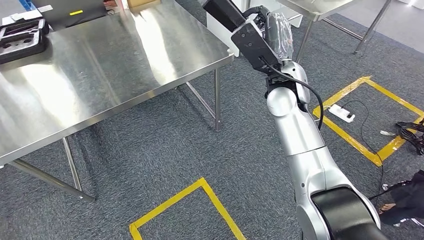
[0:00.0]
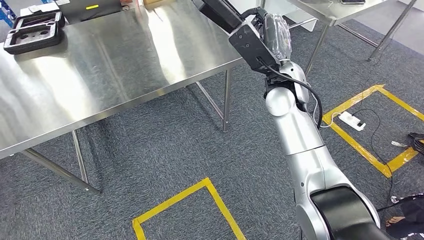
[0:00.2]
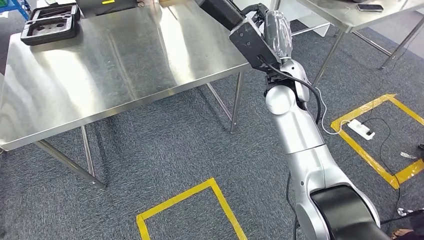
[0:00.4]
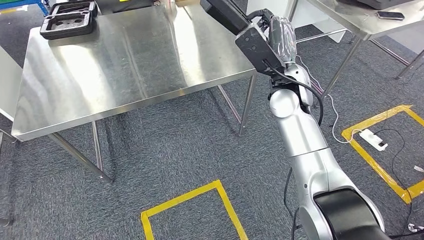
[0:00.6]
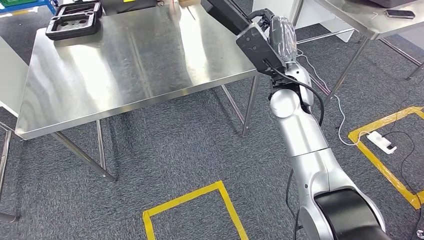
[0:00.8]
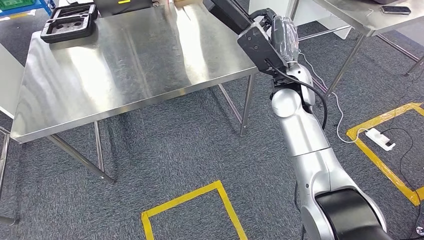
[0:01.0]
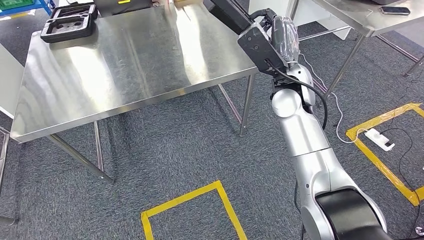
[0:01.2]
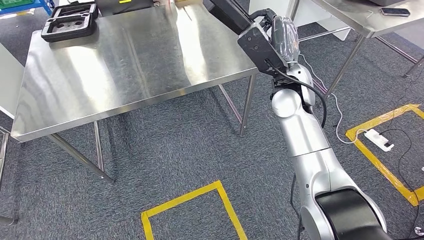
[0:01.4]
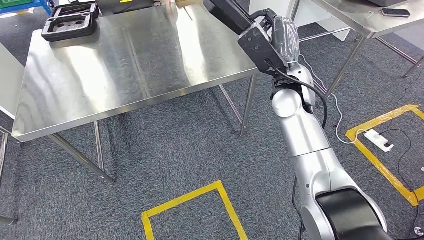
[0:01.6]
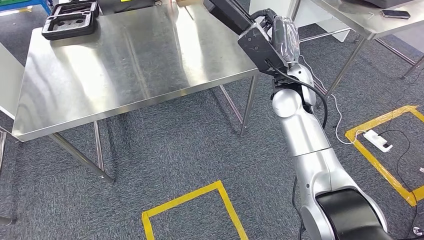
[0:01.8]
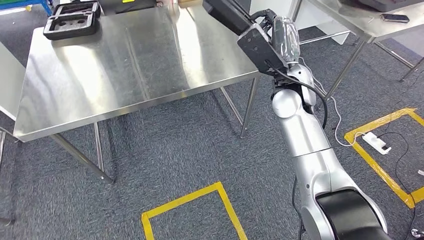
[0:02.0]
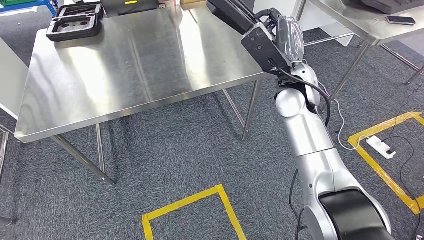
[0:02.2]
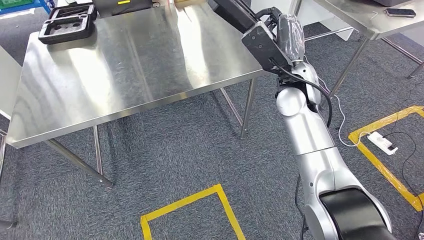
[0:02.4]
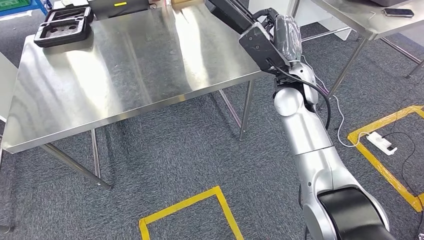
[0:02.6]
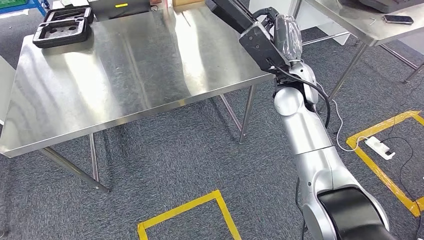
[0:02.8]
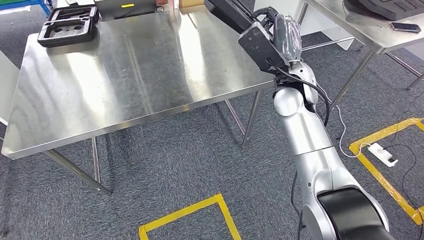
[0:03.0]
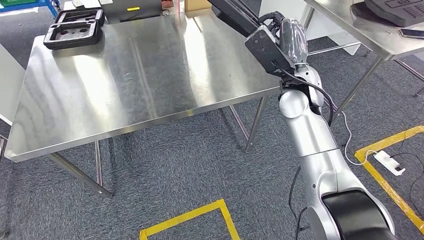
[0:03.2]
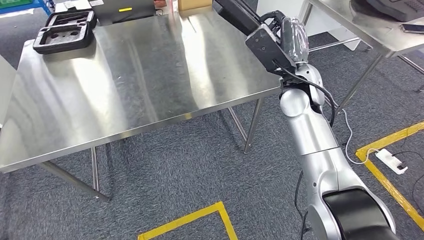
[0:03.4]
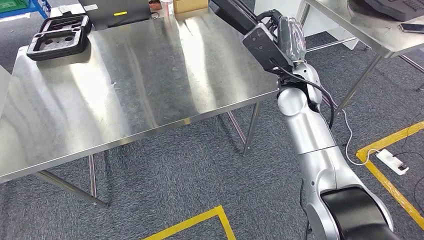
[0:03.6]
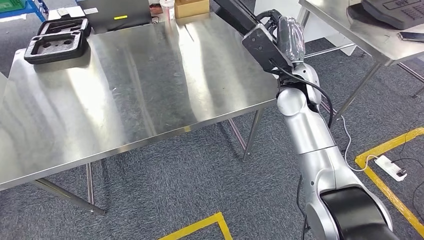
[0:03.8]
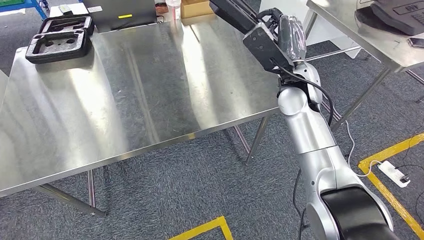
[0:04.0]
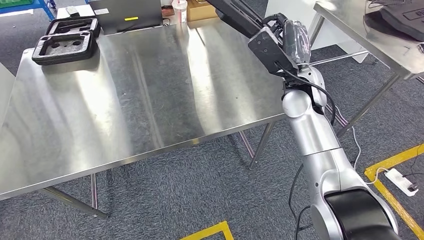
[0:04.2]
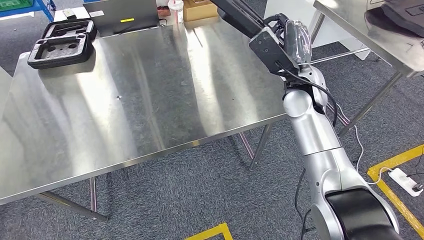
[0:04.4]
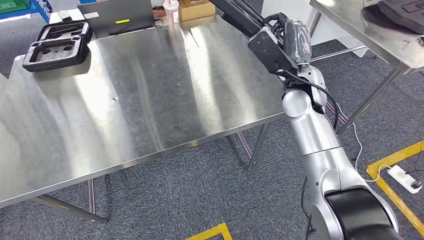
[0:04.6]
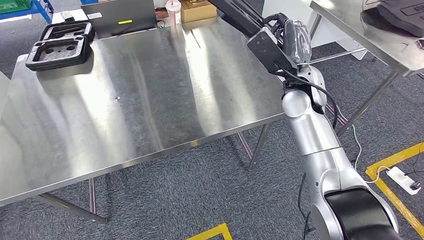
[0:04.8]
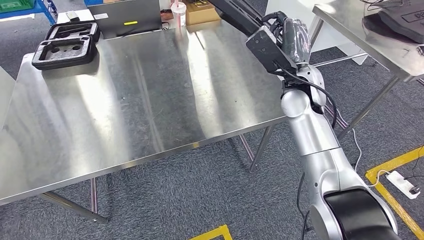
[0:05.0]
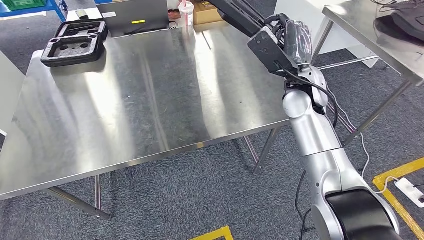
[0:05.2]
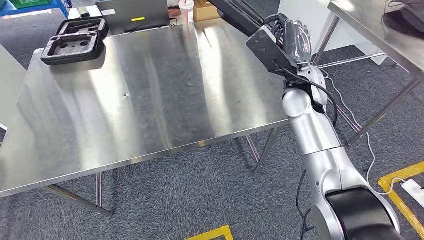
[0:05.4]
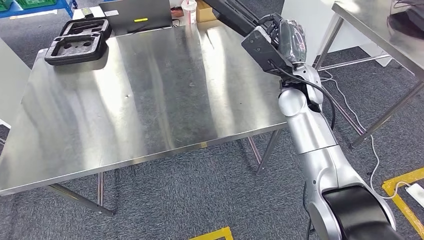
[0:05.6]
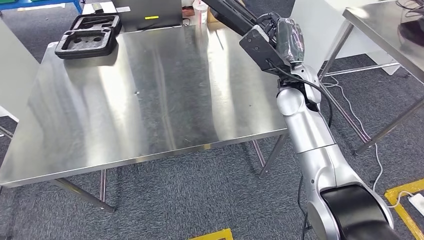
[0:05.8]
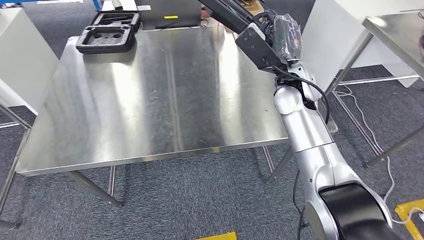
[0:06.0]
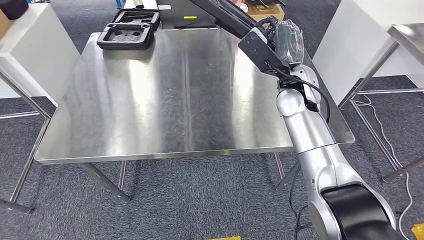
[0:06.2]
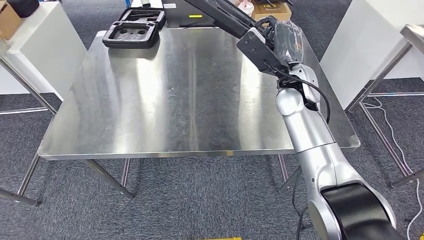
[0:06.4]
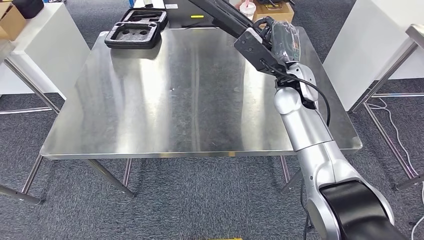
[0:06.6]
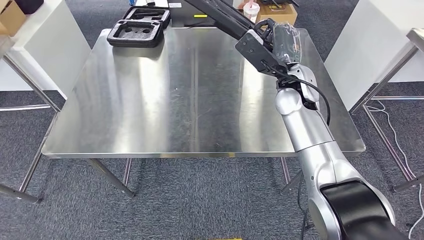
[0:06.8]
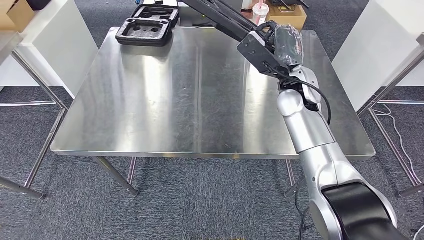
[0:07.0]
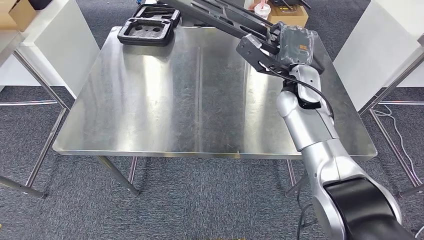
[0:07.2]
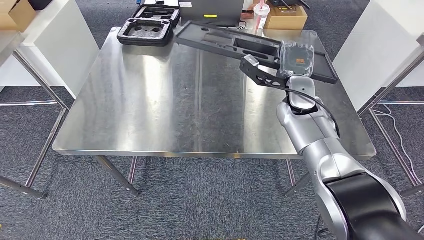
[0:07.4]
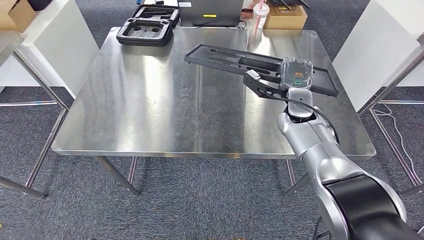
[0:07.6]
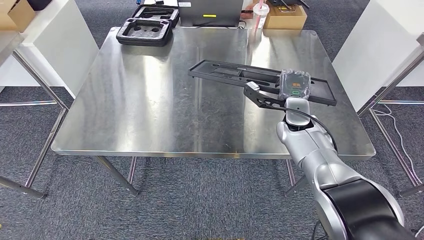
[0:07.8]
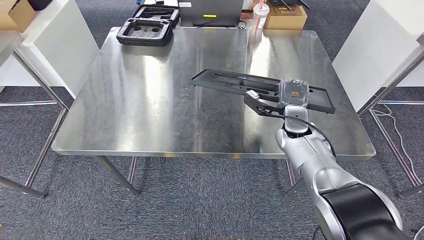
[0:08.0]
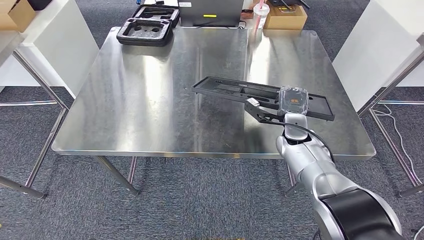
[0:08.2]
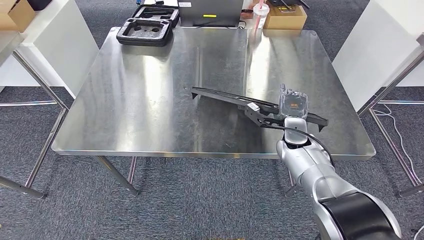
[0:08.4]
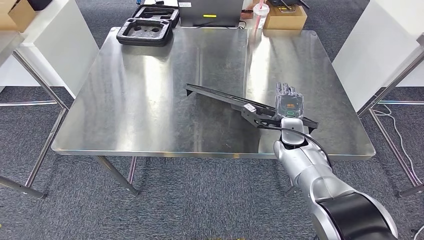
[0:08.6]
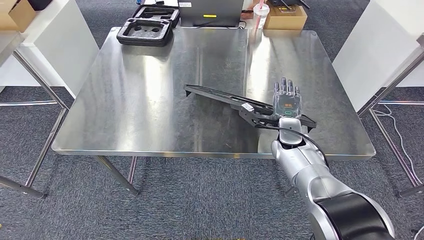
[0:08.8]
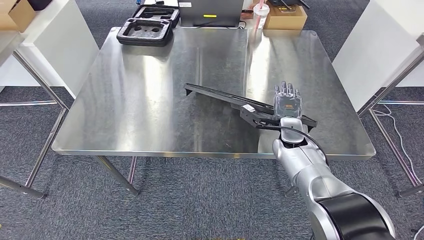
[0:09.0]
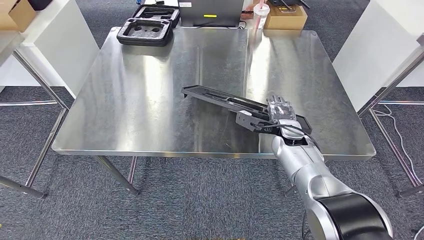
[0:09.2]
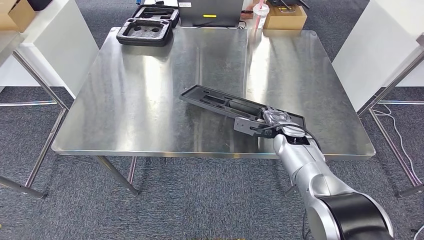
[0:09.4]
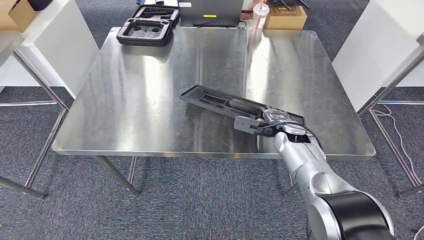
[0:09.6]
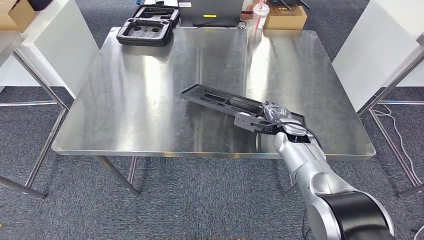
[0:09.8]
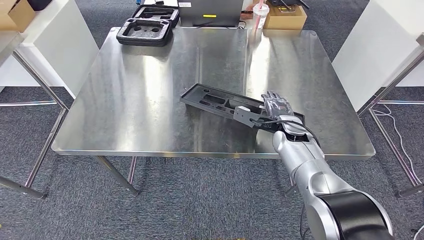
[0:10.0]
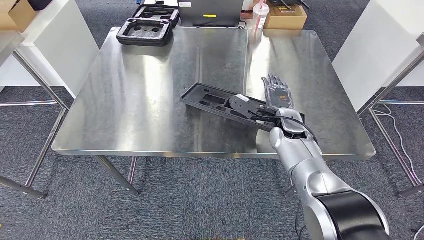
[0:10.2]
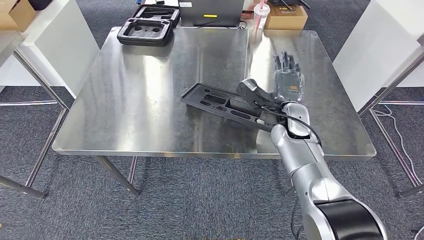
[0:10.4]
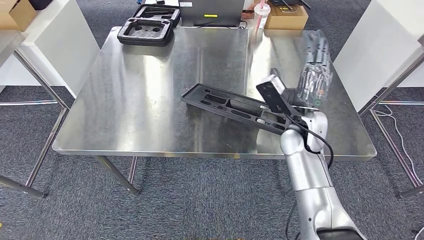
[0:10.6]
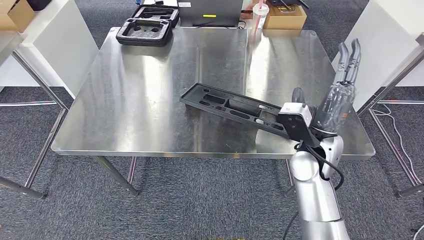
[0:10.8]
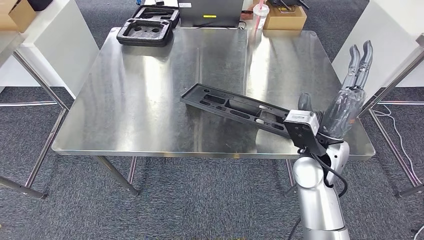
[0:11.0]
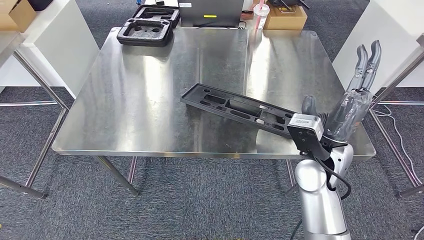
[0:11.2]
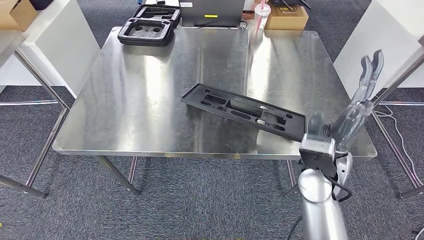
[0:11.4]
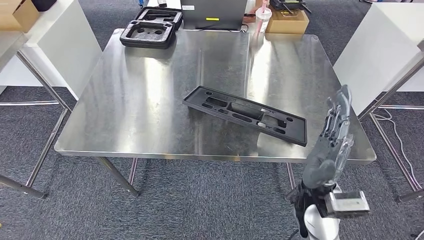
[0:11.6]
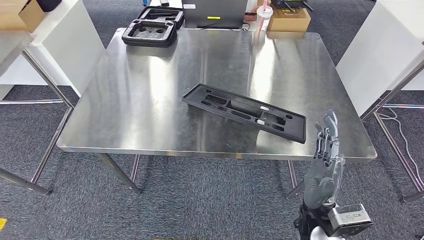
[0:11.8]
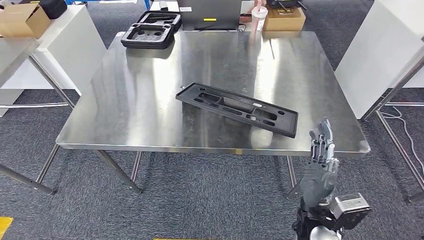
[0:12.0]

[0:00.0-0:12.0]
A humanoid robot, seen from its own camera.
Step, 0:00.0 to 0:04.4: Move the large material to the workbench.
0:07.6 to 0:09.0: The right hand travels downward by approximately 10 cm.
0:09.0 to 0:10.4: The right hand heads upward, covering roughly 5 cm.

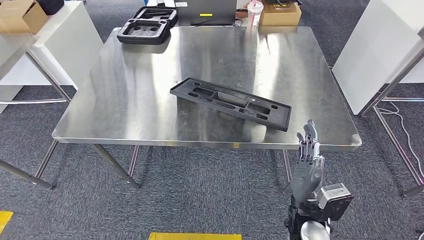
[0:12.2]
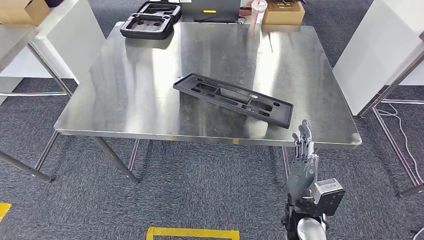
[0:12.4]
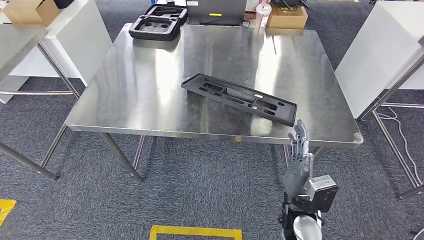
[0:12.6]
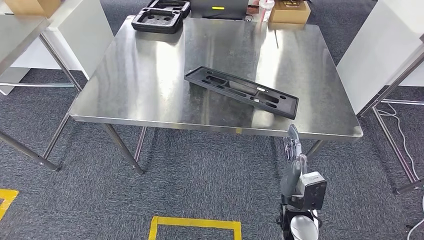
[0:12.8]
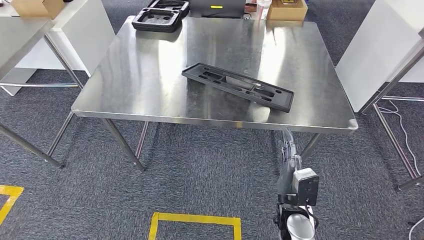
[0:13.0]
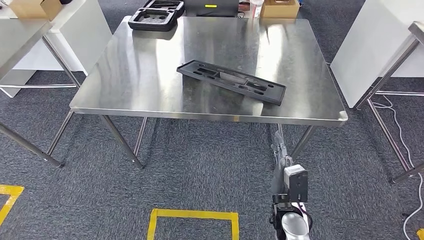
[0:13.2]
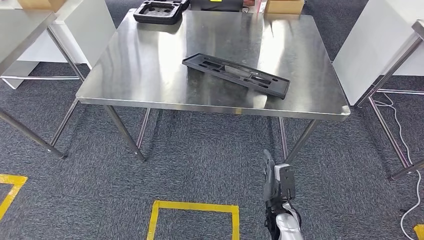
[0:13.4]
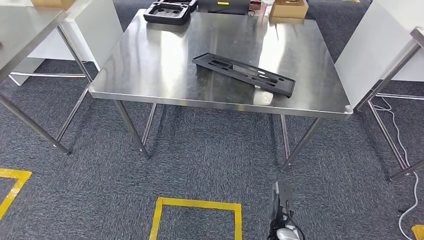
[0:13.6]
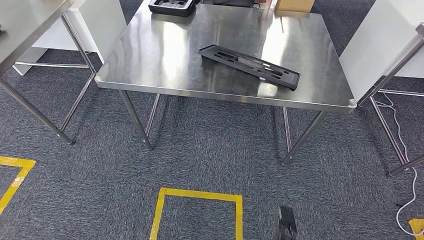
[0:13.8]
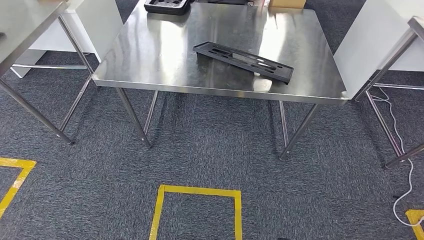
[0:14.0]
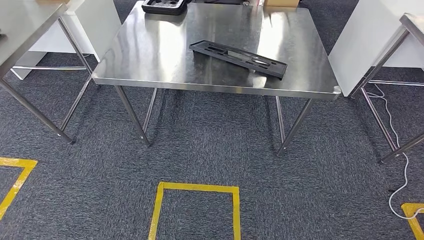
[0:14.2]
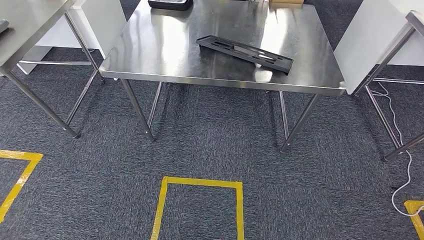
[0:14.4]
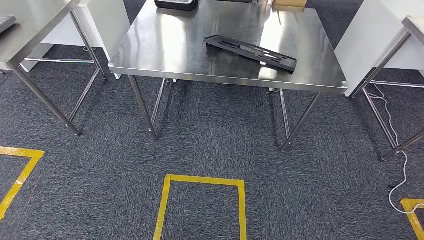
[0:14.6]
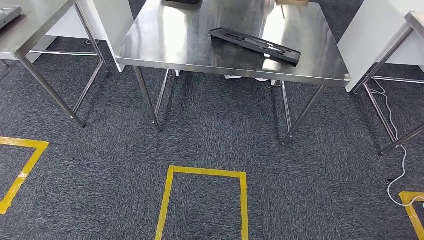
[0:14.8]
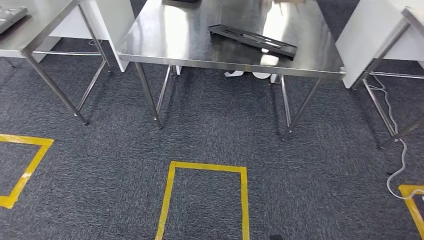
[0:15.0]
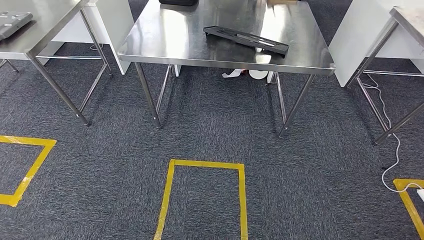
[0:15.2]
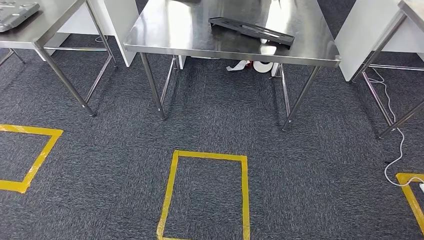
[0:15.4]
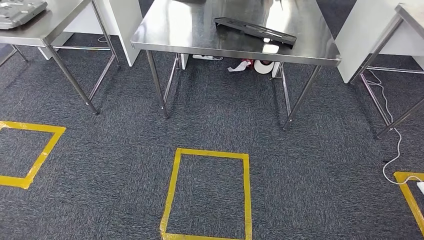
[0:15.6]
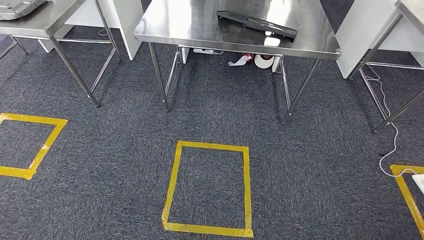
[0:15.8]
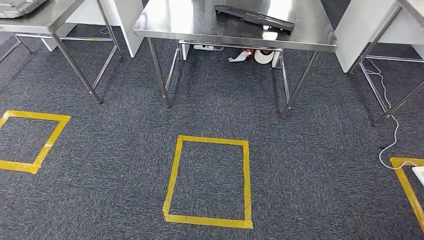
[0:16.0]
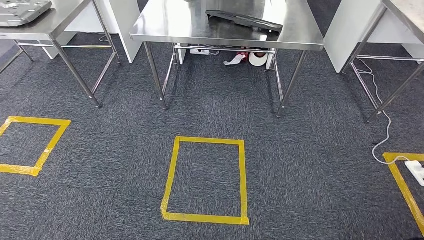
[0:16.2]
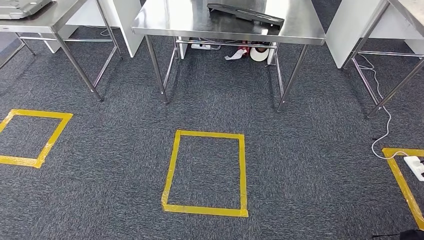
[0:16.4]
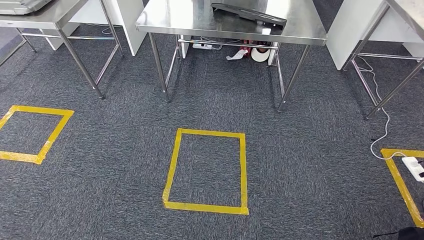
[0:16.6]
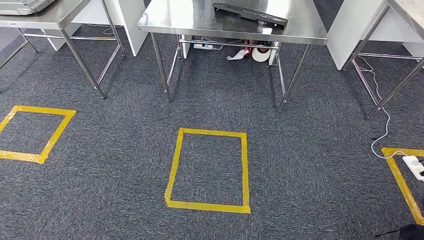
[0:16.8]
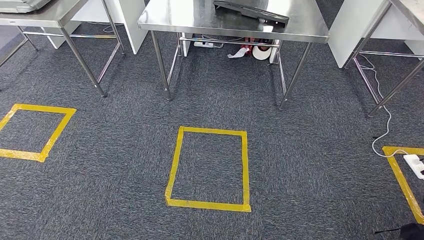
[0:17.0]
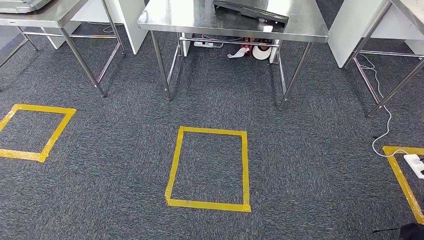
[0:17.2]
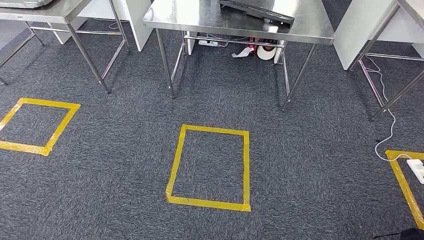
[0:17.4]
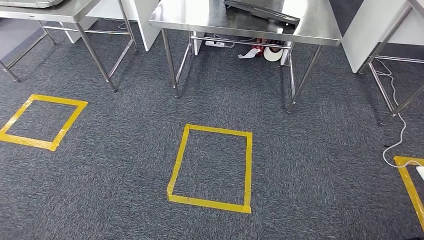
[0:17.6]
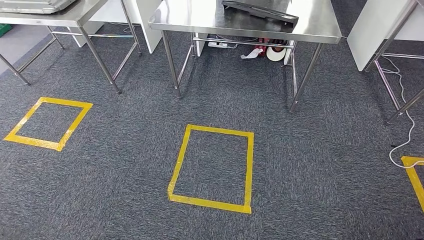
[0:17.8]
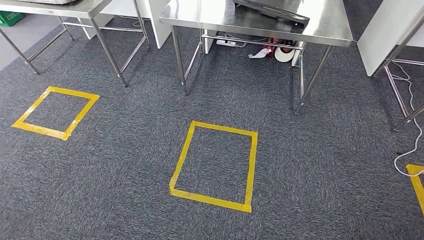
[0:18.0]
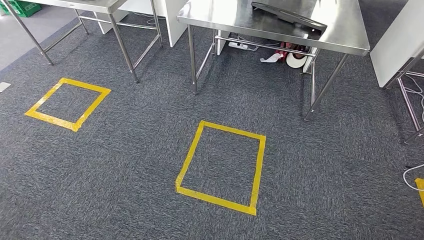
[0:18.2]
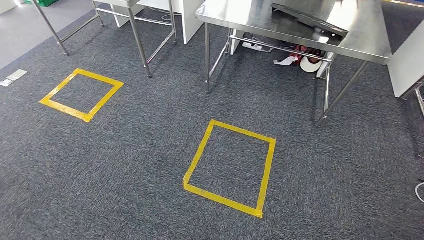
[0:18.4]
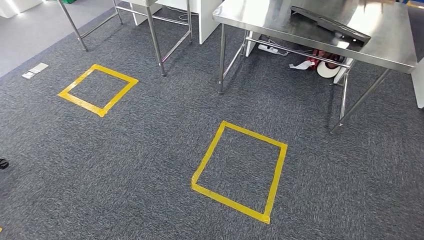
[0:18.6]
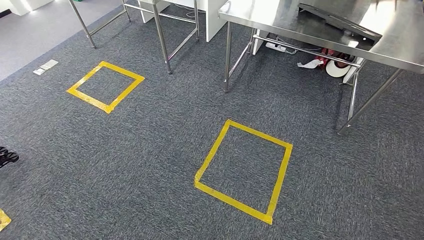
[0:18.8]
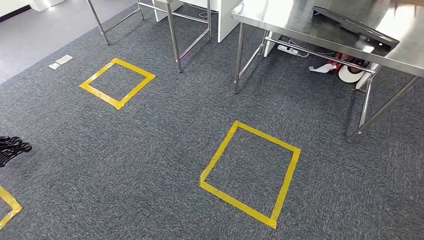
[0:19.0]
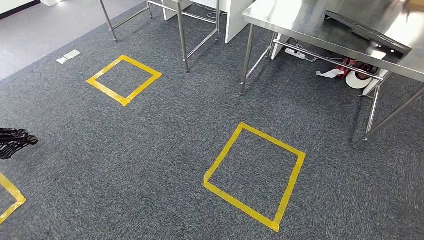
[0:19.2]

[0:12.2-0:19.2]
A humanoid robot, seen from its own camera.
Step, 0:12.2 to 0:15.2: Insert the large material into the corresponding slot on the workbench.
